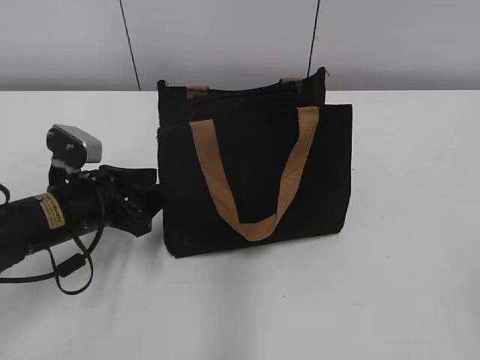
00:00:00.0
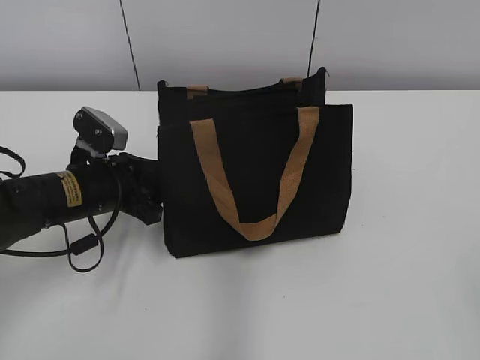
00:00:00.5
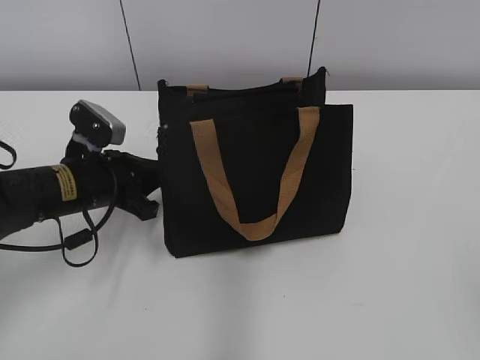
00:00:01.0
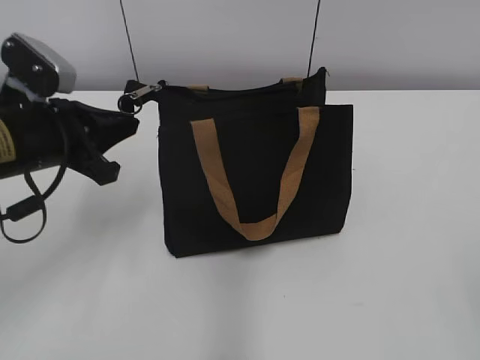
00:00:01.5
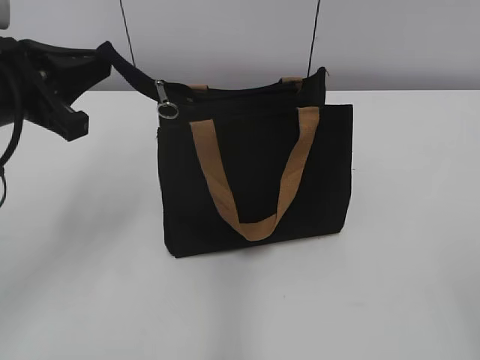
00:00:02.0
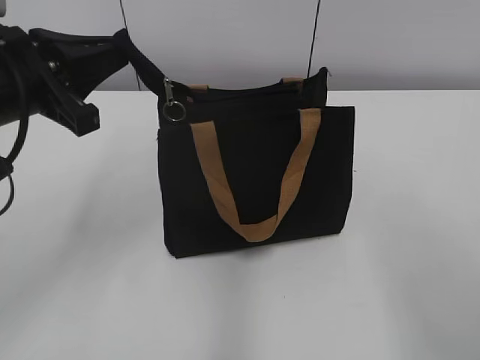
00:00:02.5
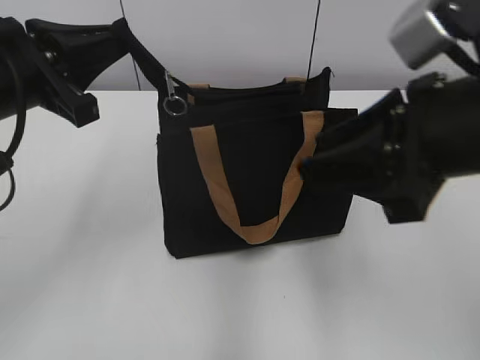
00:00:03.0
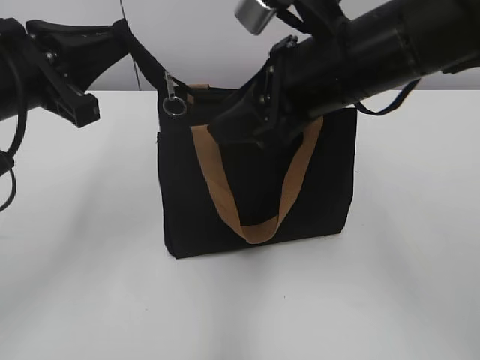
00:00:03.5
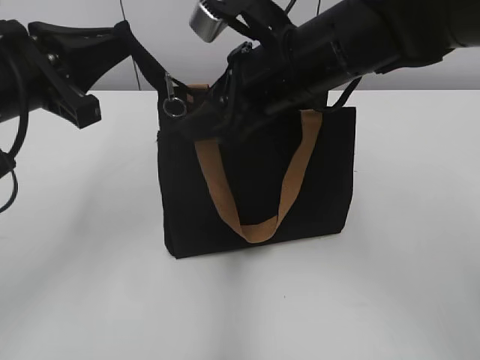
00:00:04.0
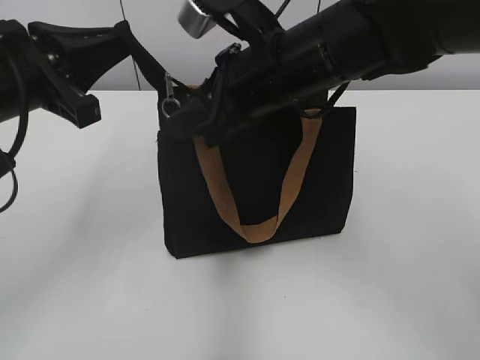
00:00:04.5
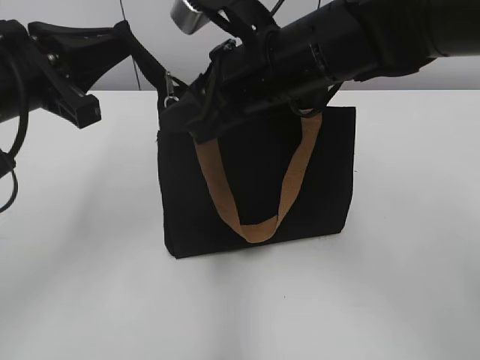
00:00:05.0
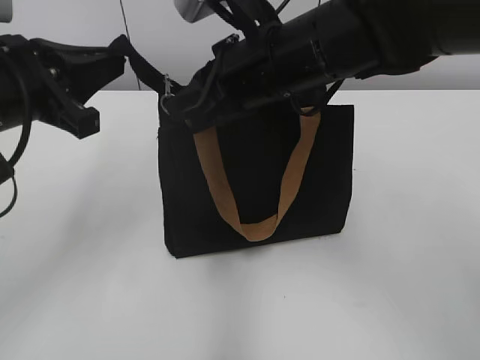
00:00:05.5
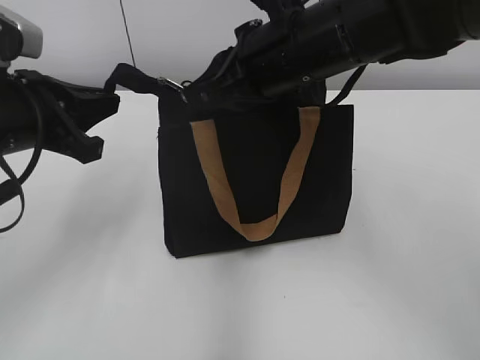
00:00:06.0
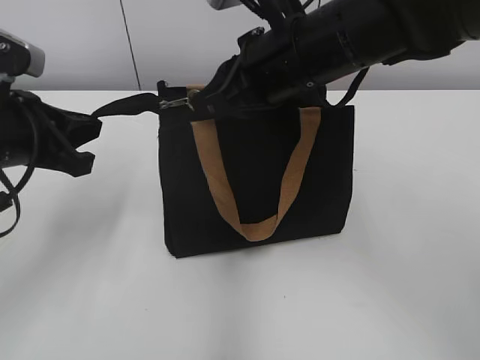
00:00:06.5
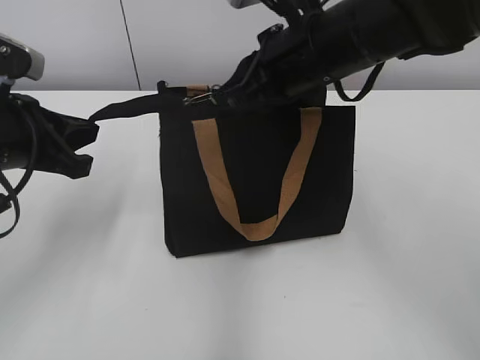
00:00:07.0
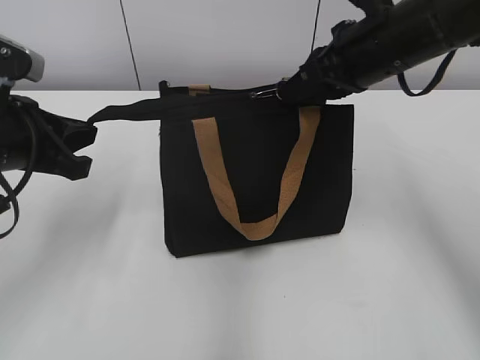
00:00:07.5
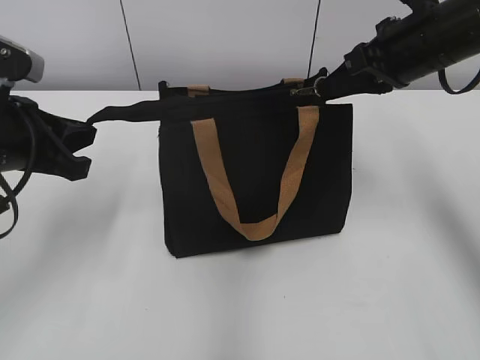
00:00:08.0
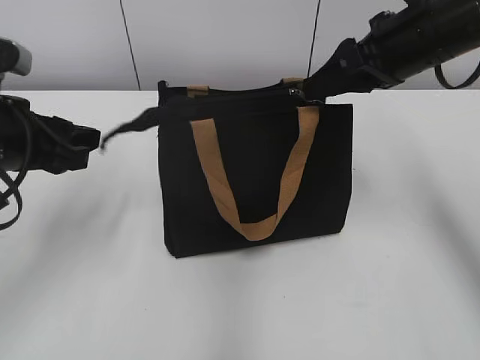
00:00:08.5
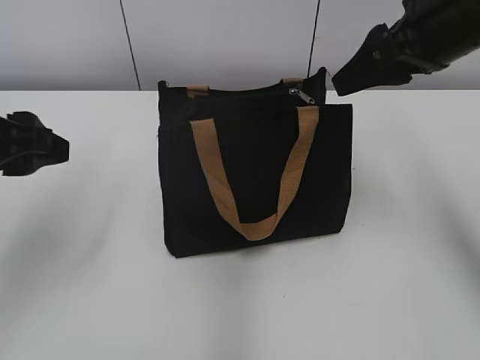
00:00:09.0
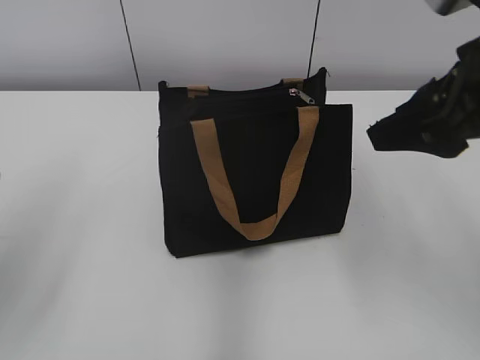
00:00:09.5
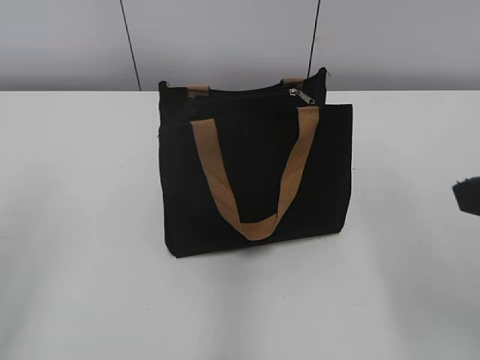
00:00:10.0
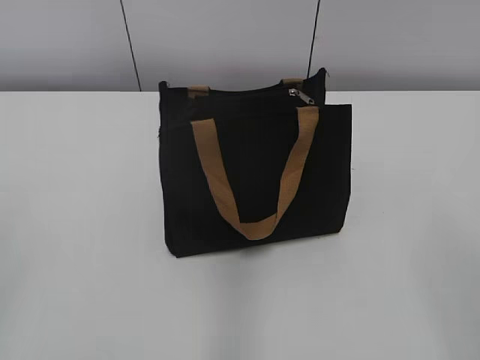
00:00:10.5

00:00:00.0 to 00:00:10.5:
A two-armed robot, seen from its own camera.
Step, 00:00:00.0 to 00:00:08.0: Grab the zipper with your left hand.
00:00:00.0 to 00:00:02.0: The left gripper is displaced upward by roughly 15 cm, and closes.
00:00:02.0 to 00:00:04.0: The right gripper travels forward and to the left by roughly 40 cm.
00:00:04.0 to 00:00:06.5: The left gripper moves about 5 cm. The right gripper closes.
00:00:06.5 to 00:00:08.5: The left gripper opens its fingers. The right gripper heads to the right, covering some 10 cm, and opens.
00:00:08.5 to 00:00:10.5: The right gripper heads backward, covering roughly 30 cm. Meanwhile the left gripper goes approximately 25 cm backward and upward, and opens its fingers.
